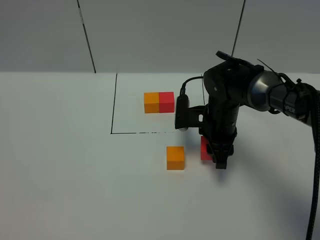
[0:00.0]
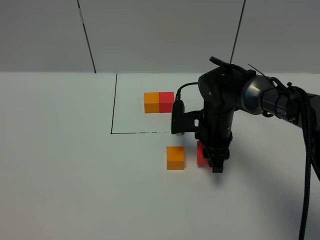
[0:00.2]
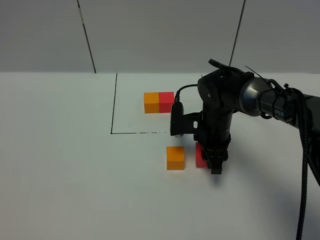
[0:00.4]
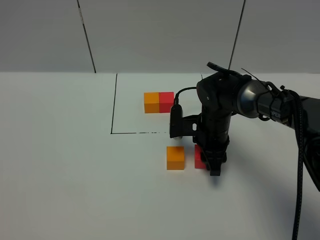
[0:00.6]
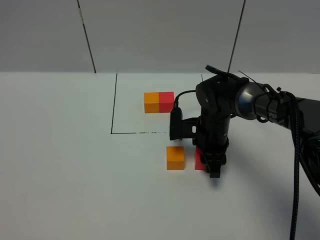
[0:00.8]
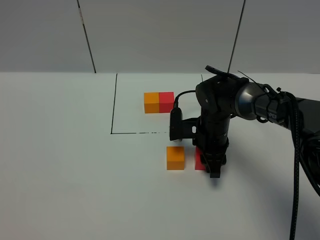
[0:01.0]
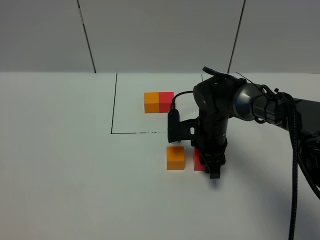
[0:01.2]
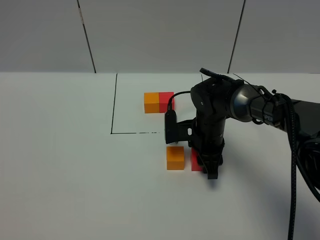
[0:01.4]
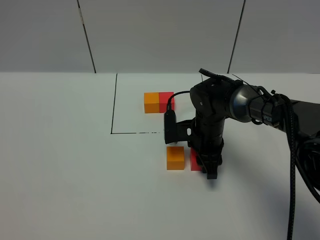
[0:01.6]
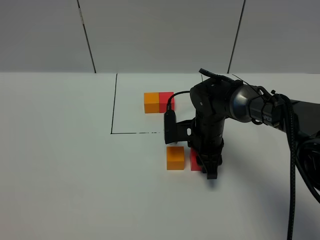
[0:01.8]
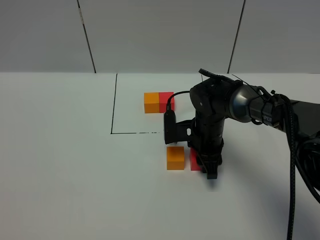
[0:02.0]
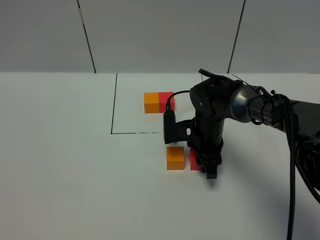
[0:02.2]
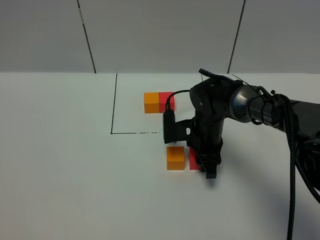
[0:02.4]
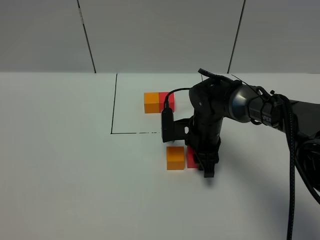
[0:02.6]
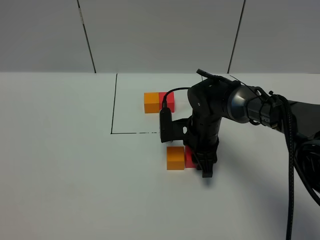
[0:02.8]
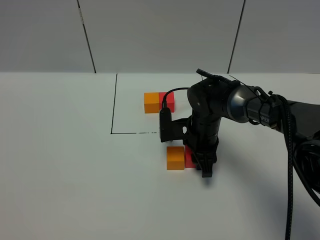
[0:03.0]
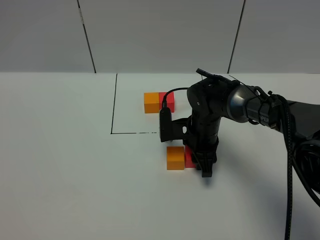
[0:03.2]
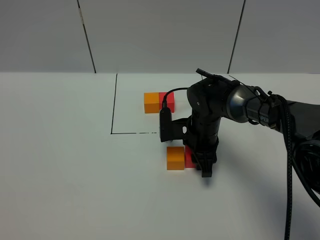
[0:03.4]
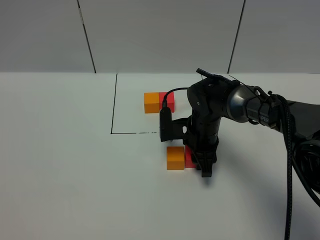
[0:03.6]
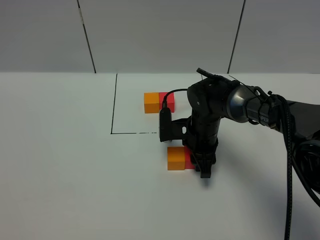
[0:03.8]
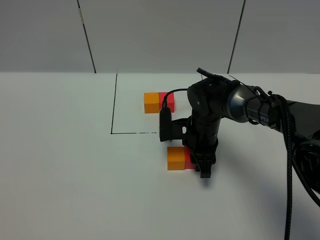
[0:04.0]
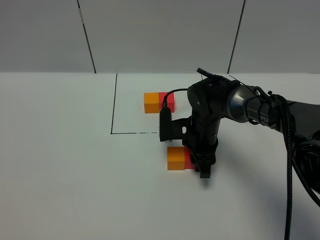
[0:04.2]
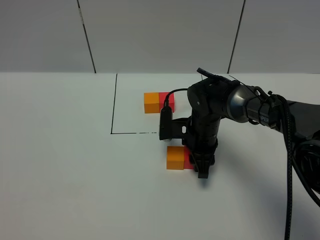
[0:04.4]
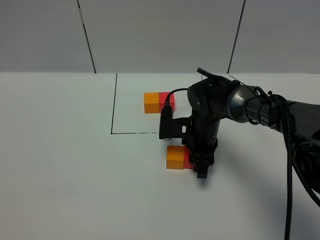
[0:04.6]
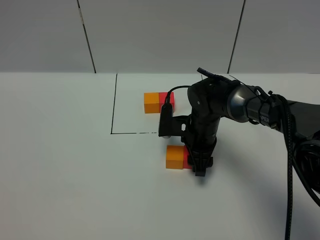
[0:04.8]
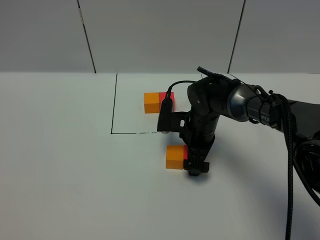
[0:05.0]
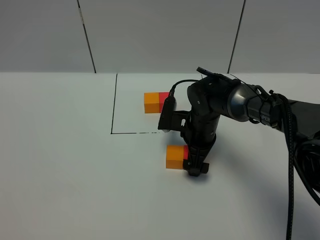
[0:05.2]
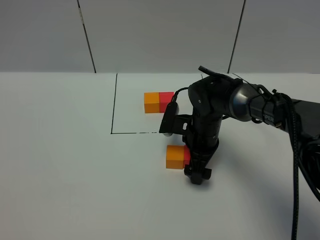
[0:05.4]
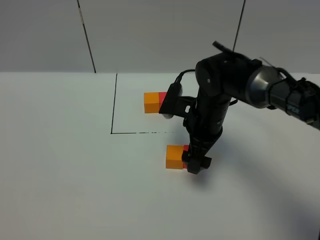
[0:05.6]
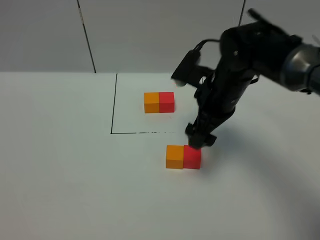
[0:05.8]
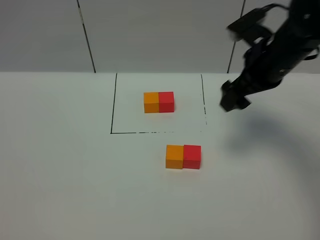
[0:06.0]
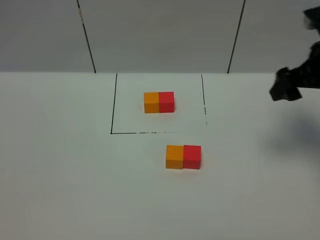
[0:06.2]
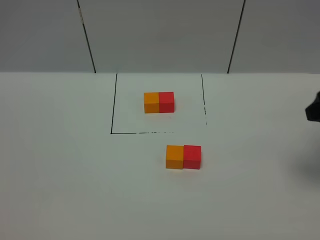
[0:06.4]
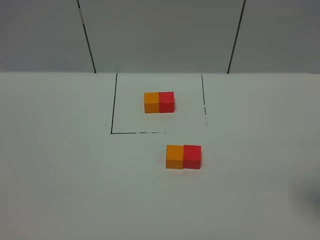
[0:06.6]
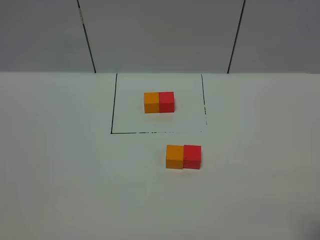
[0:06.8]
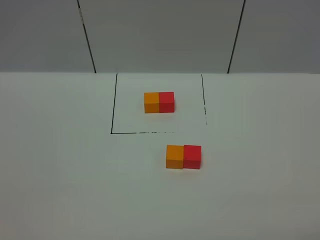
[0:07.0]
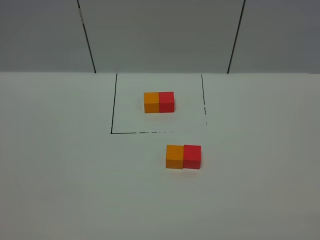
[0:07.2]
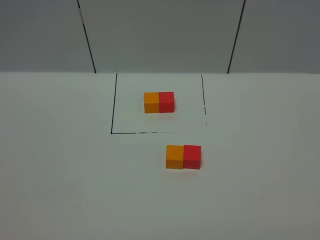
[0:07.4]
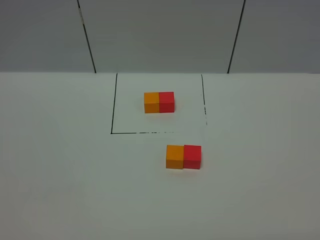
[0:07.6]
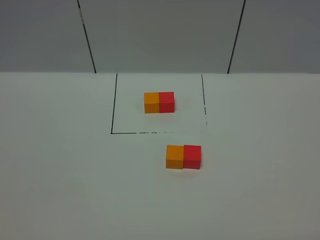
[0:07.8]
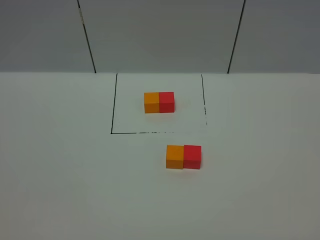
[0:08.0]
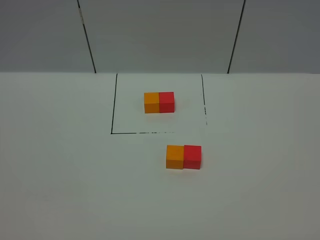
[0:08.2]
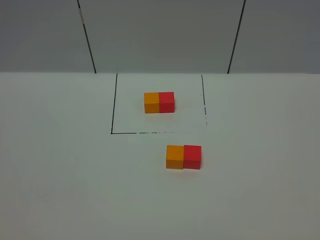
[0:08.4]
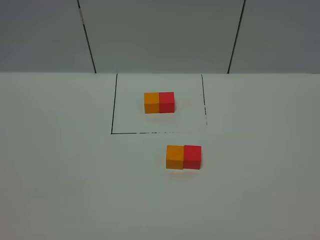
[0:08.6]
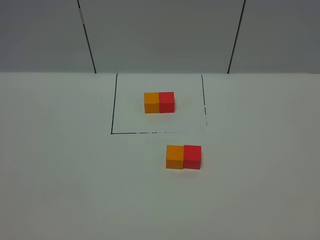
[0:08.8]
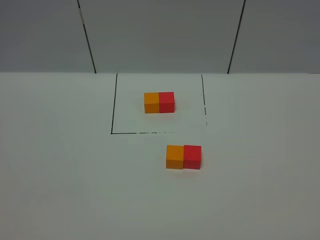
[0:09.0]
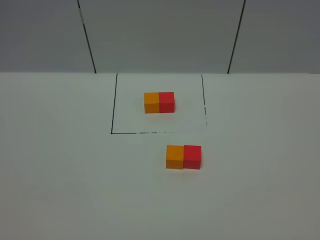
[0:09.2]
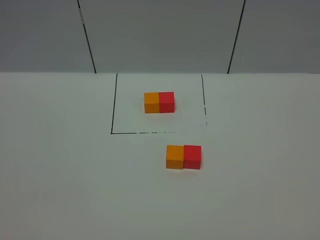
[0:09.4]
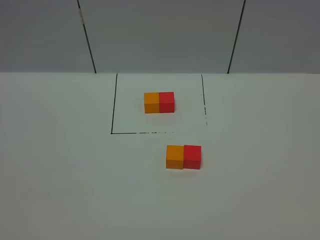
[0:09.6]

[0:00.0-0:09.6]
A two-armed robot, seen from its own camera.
Task of the whole recording: According to the building block template in front, assemble the scattered blocks together.
Step, 0:00.0 to 0:05.6: Put the red cube on the right of the orange cube.
0:00.0 to 0:01.6: There are only small adjustments of the grippers.
0:01.6 to 0:03.2: The two grippers keep their place.
0:03.2 to 0:04.8: The right gripper opens.
0:04.8 to 0:06.4: The right gripper goes approximately 35 cm to the right, upward and backward, and opens up.
0:06.4 to 0:08.0: The right gripper shifts approximately 25 cm backward.

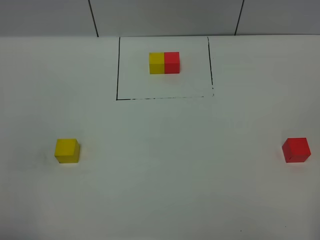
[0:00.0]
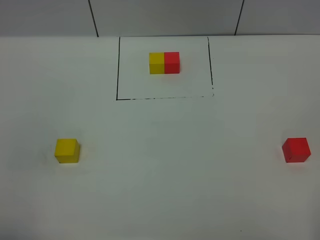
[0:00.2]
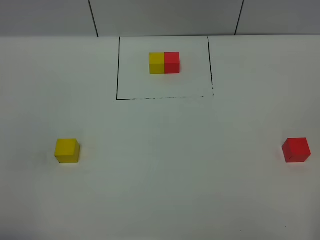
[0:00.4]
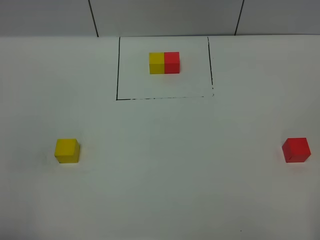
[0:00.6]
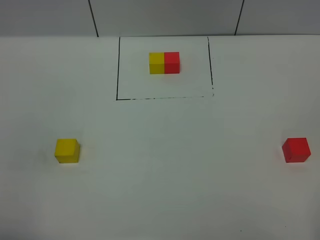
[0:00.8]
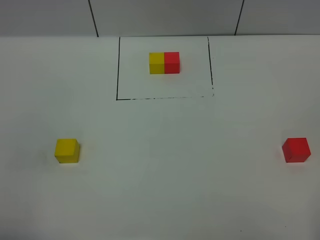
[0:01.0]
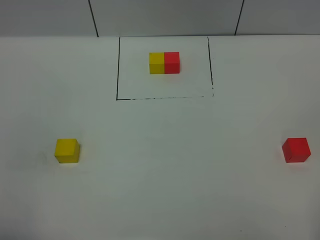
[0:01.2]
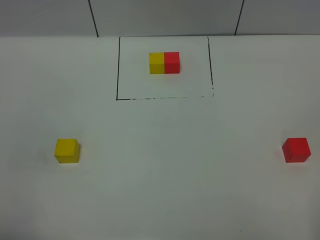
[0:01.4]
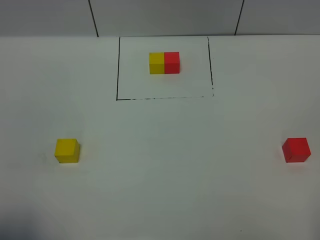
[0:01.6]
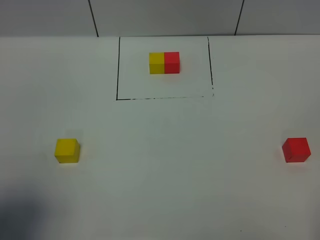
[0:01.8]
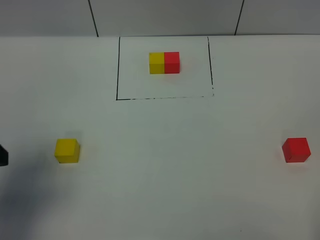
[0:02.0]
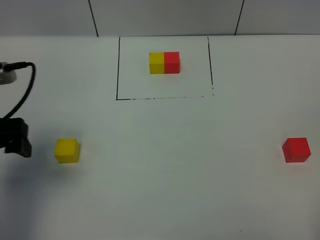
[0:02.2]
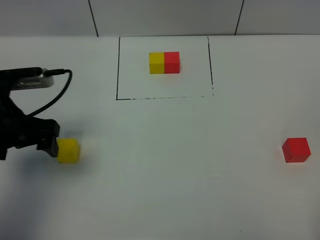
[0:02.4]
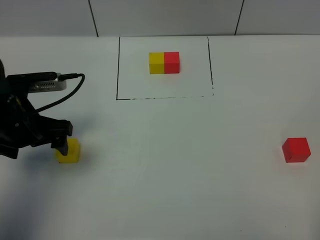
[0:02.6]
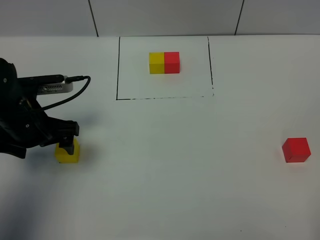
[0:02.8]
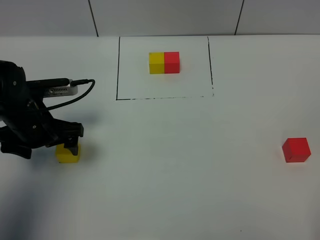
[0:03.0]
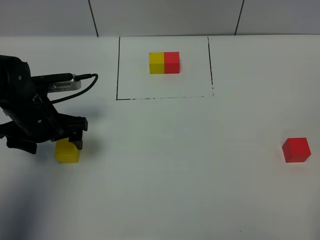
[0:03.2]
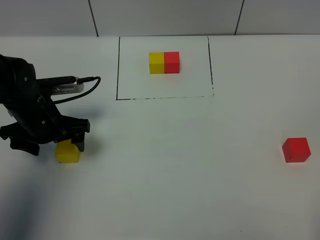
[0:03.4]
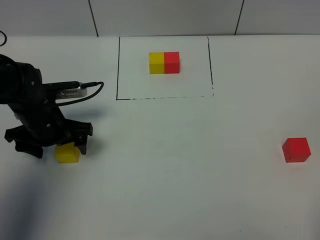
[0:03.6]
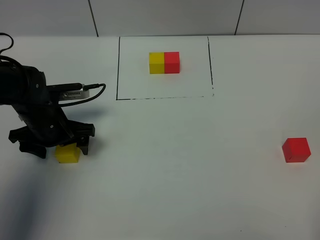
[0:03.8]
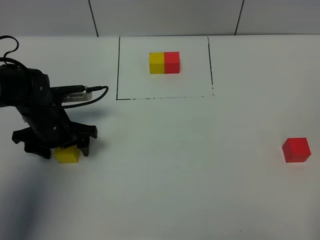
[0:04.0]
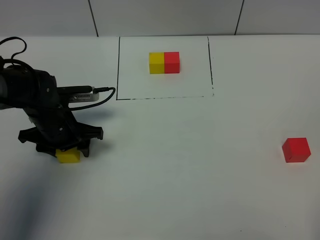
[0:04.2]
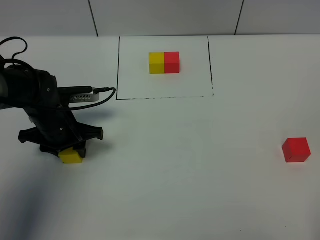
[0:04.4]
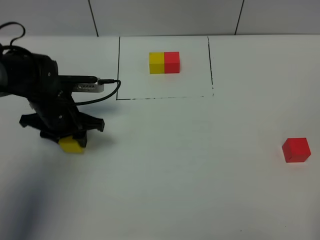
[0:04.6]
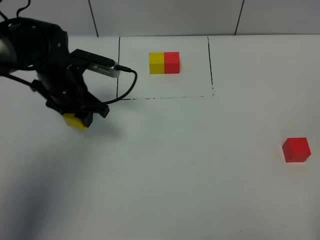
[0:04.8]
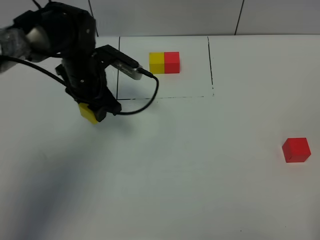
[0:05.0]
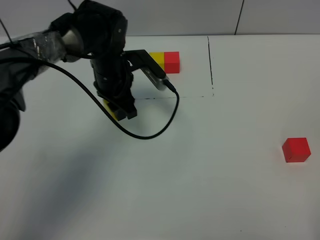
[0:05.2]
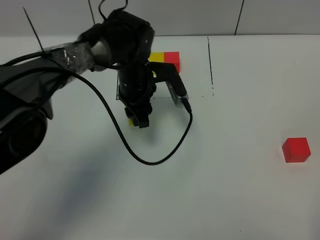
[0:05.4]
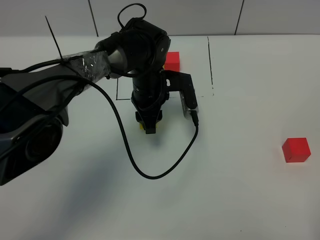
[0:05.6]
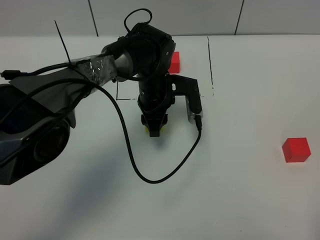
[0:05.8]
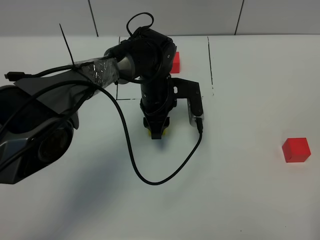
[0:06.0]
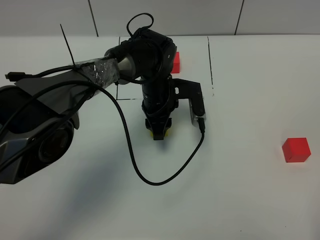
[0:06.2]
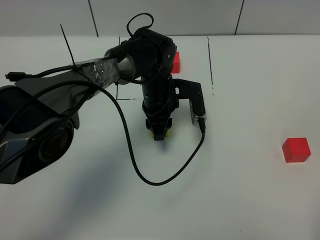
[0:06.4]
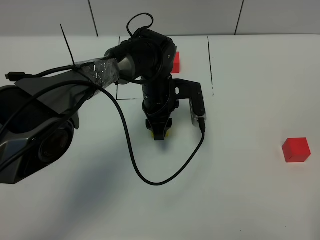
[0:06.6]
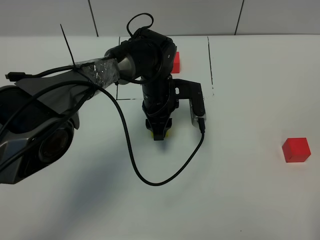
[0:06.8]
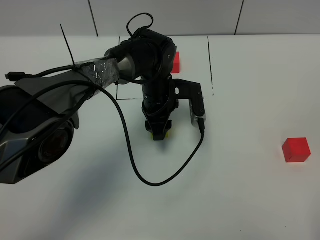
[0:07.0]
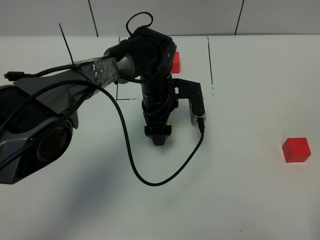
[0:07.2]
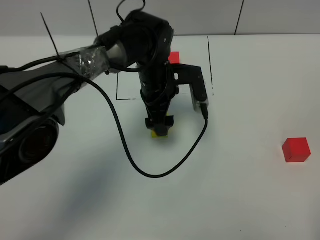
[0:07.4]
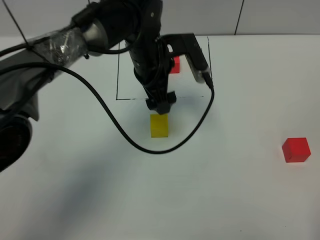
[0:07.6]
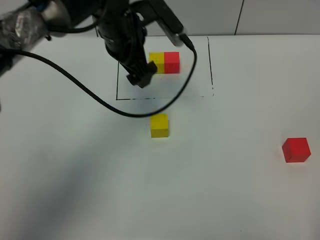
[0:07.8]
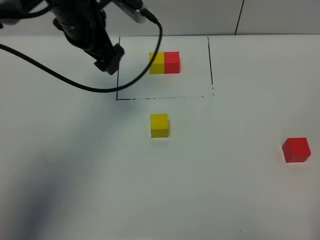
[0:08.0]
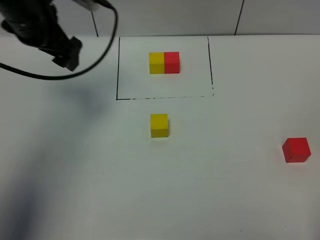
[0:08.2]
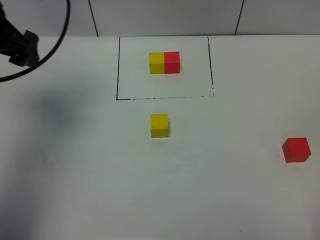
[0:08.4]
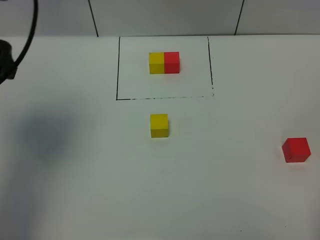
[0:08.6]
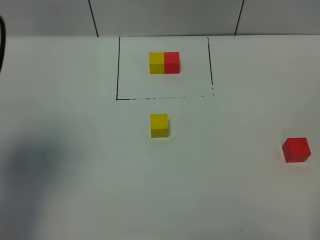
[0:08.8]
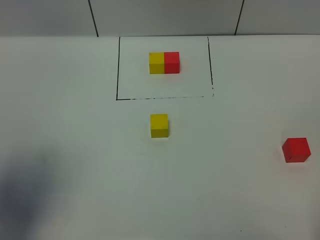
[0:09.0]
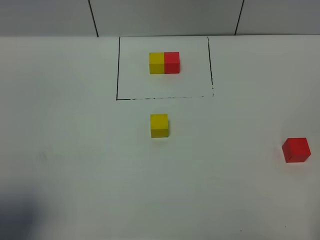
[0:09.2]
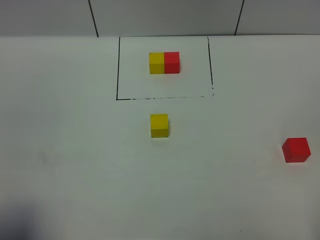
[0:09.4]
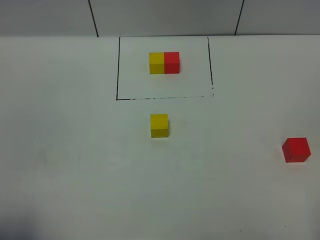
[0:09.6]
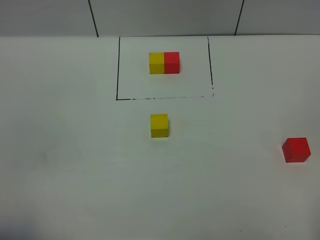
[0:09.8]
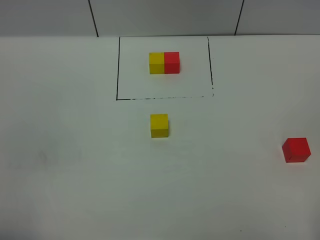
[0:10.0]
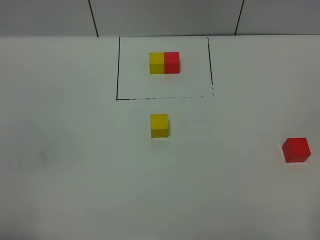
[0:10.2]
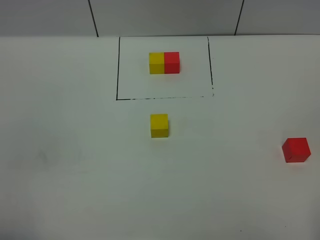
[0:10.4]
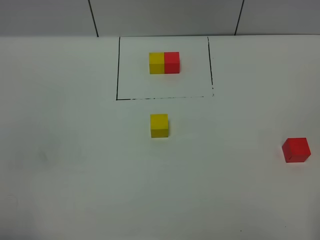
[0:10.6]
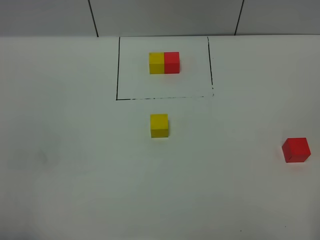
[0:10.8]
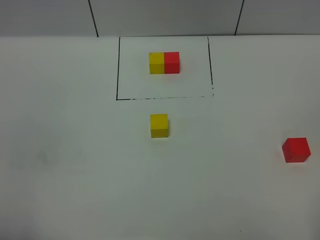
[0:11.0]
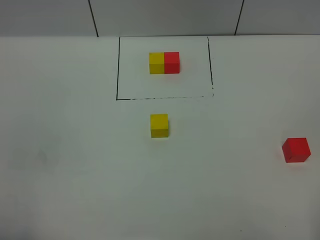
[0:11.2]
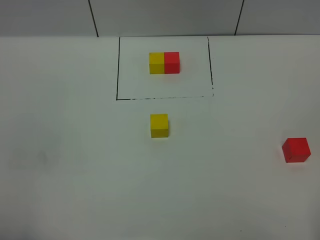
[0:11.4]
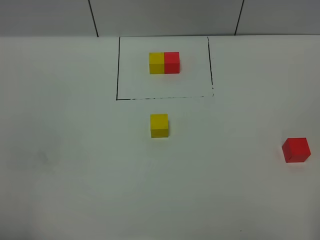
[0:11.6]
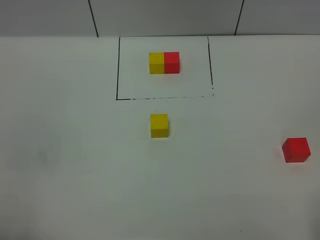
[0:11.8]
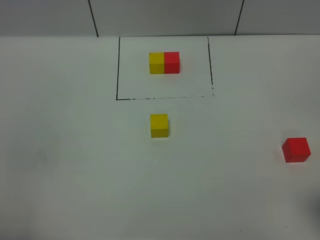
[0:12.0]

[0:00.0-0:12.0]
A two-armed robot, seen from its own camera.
Task of the whole recording: According to the building block template in front, assemble the scattered blocks together.
Step, 0:02.0 to 0:07.4: Put the yellow cube in the center of the table.
0:01.6 to 0:03.0: The left gripper travels forward and downward by some 30 cm.
0:03.0 to 0:04.4: The left gripper changes place by approximately 5 cm, and closes up.
0:04.4 to 0:06.0: The left gripper is displaced to the right by about 20 cm.
0:06.0 to 0:07.6: The left gripper moves upward, about 10 cm, and opens its fingers.
0:07.6 to 0:09.0: The left gripper goes approximately 40 cm backward, to the left and upward.
0:09.0 to 0:10.4: The left gripper goes approximately 15 cm backward and downward.

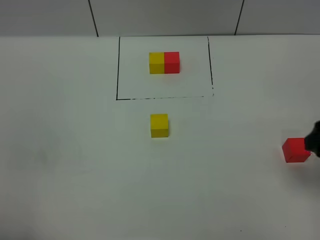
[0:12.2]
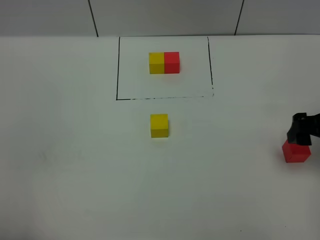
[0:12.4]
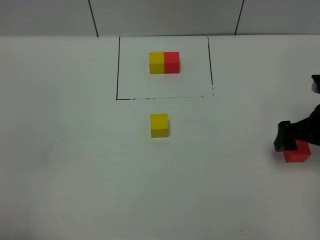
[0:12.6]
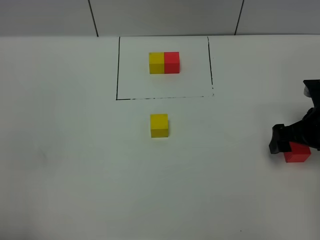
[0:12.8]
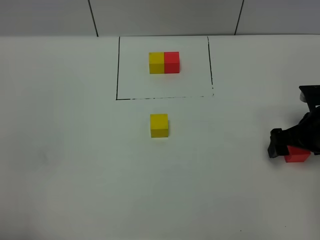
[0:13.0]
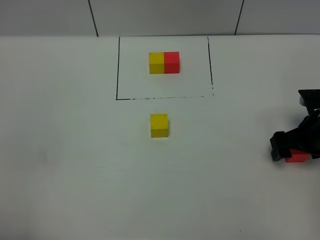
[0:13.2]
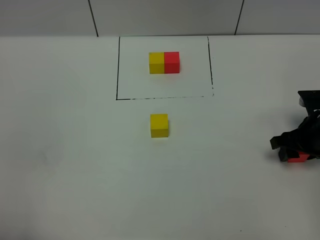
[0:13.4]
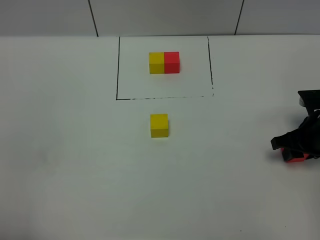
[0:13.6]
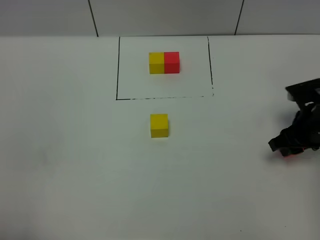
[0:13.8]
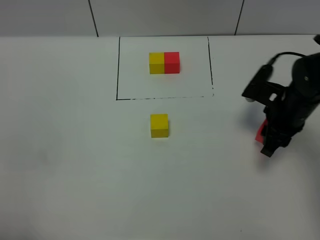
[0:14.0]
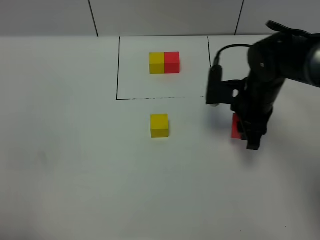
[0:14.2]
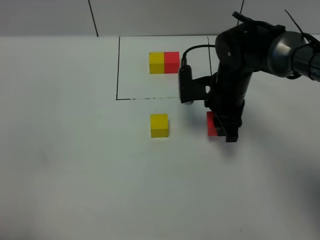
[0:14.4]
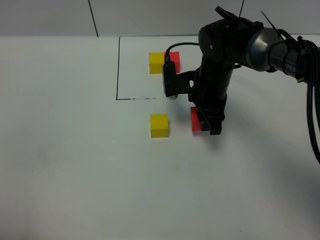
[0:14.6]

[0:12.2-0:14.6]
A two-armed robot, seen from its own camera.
Task of the whole recording: According to the building block template in front, assemble the scattered blocks together.
0:12.2 to 0:13.4: The right gripper moves downward and forward, some 15 cm, and closes its fingers.
0:13.4 to 0:14.6: The right gripper goes approximately 25 cm to the left and forward.
